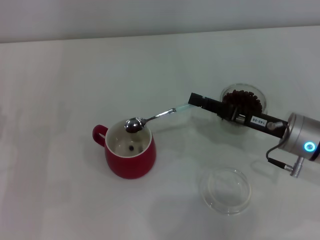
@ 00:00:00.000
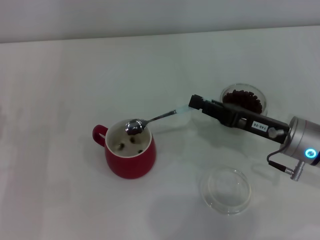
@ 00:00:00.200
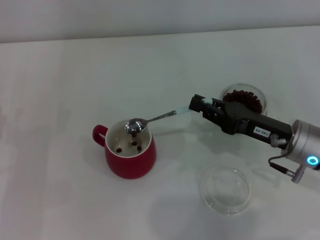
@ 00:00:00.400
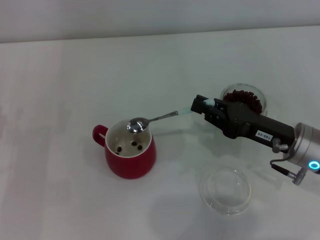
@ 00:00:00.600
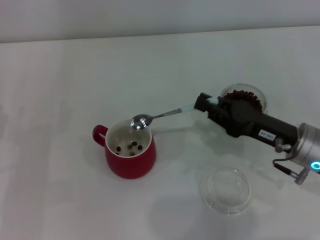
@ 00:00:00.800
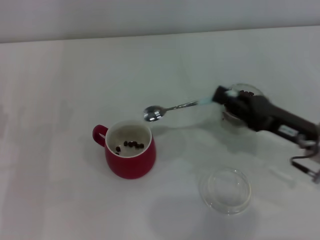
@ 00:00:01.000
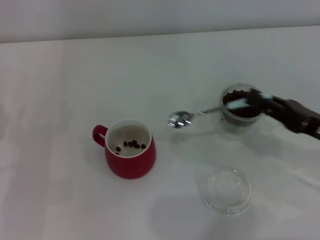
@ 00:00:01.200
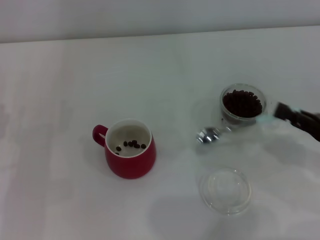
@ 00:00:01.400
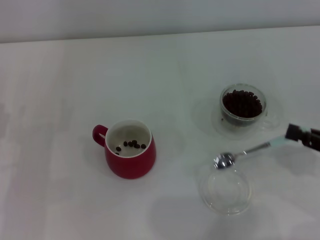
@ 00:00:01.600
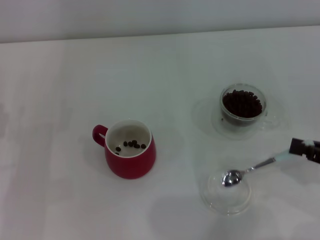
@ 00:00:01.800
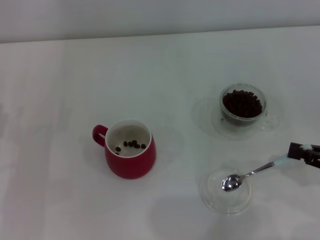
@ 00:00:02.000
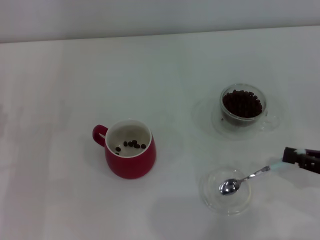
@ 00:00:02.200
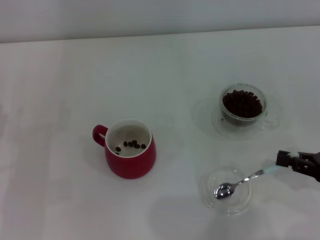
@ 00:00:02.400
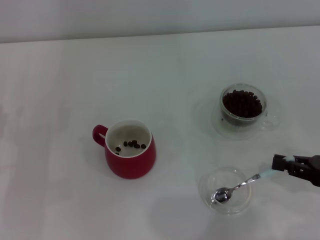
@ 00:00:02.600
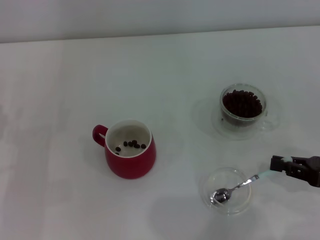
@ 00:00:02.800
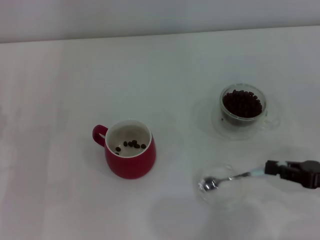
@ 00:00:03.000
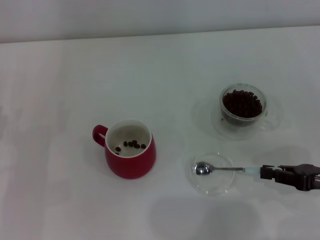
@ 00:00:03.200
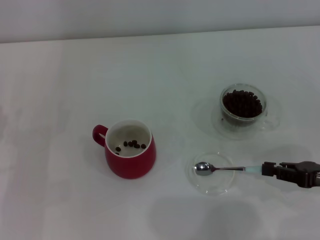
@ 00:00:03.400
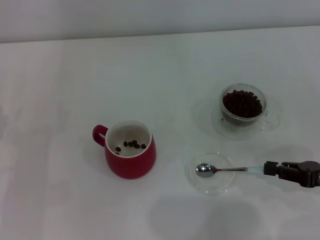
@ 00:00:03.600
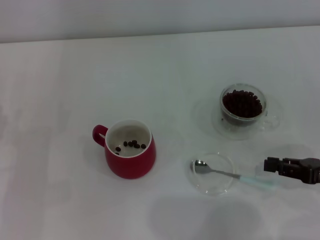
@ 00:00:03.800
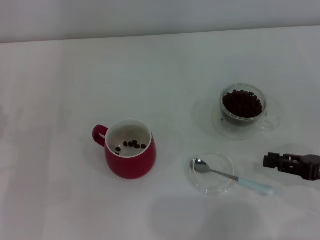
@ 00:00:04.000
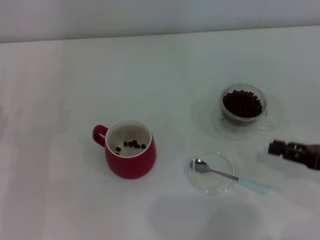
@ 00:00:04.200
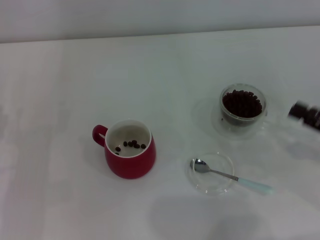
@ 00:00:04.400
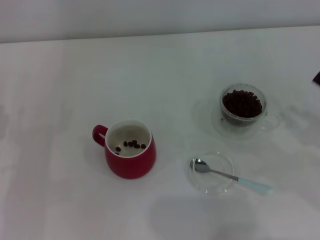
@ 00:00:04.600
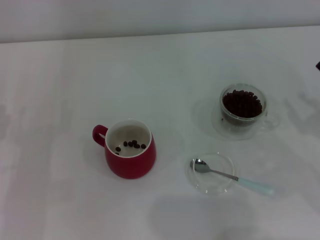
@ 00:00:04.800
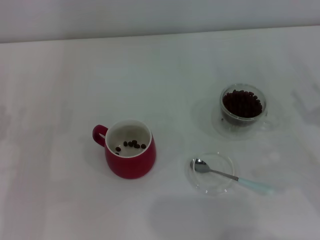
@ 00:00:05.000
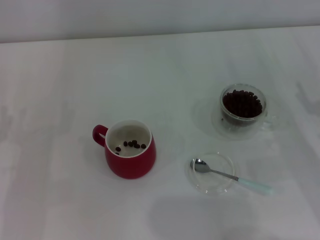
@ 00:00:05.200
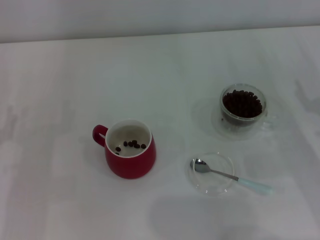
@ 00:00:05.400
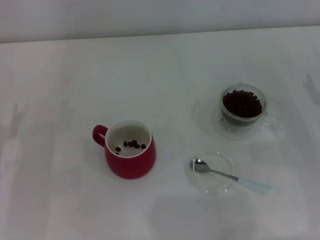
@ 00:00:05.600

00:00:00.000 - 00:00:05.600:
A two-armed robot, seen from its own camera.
Task of the whole recording: Use a blue spoon to take out the coffee beans from the glass and pour them into the red cup.
Step, 00:00:01.000 - 00:00:04.000: Place the spoon back in its original place with the right gripper.
00:00:00.000 - 00:00:01.400: The right gripper is displaced to the right and backward by approximately 10 cm.
00:00:01.400 - 00:00:02.800: The grippers make only small movements.
00:00:02.800 - 00:00:04.200: The grippers move only a little.
00:00:04.200 - 00:00:05.600: The right gripper moves forward, approximately 5 cm, and opens.
